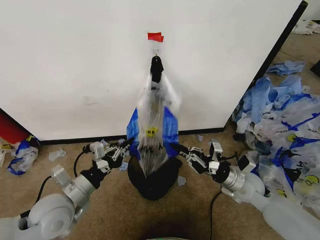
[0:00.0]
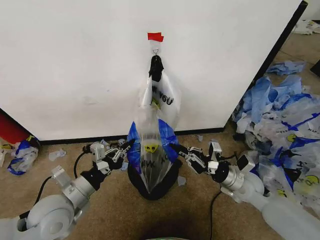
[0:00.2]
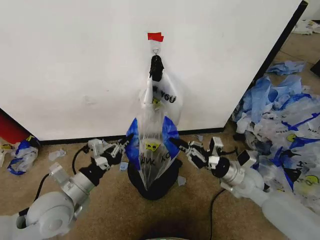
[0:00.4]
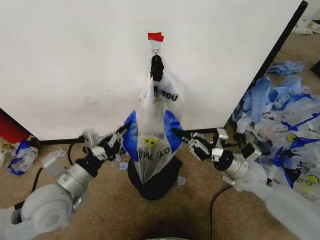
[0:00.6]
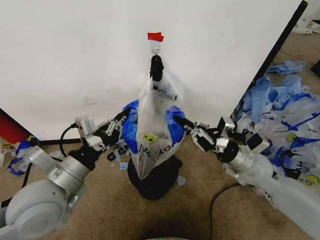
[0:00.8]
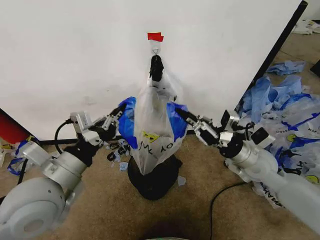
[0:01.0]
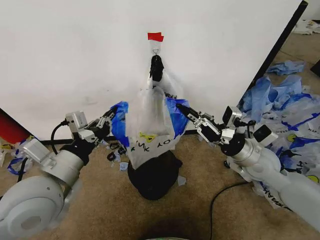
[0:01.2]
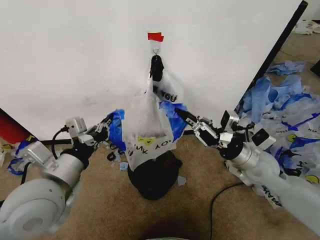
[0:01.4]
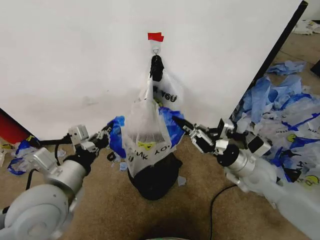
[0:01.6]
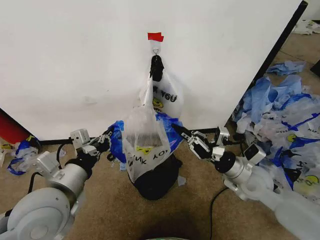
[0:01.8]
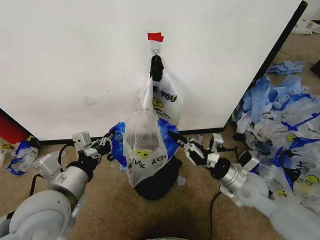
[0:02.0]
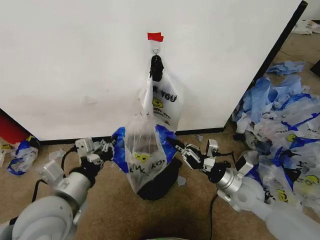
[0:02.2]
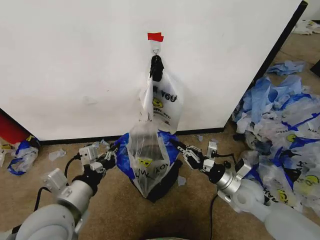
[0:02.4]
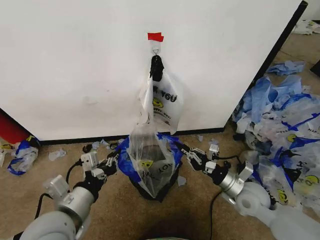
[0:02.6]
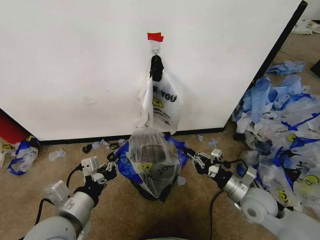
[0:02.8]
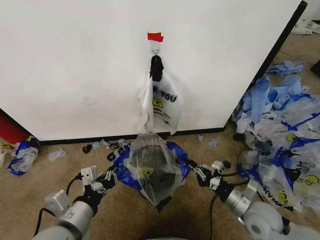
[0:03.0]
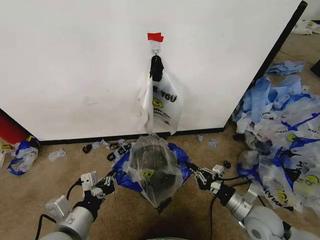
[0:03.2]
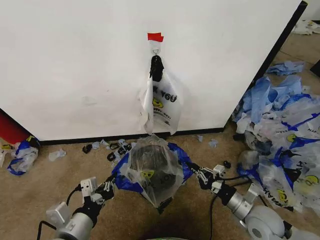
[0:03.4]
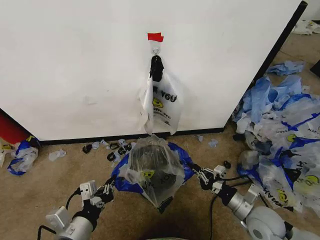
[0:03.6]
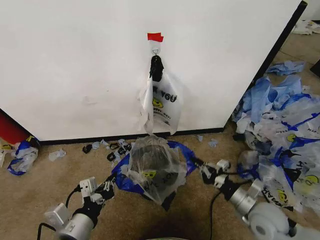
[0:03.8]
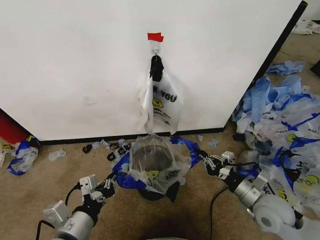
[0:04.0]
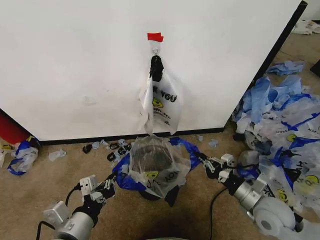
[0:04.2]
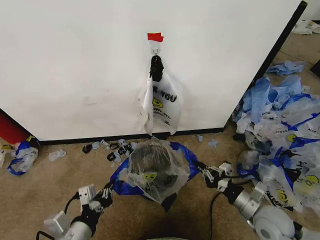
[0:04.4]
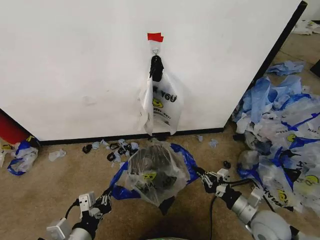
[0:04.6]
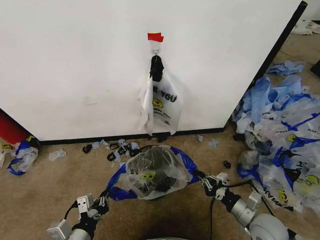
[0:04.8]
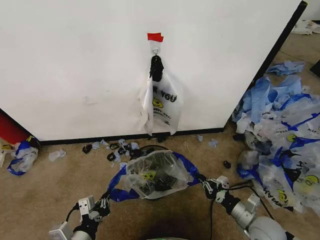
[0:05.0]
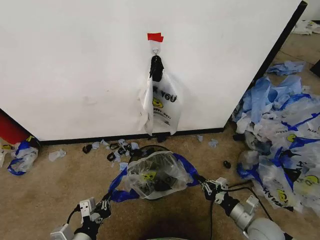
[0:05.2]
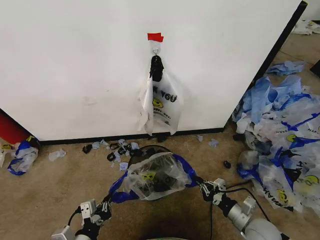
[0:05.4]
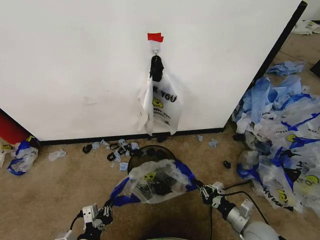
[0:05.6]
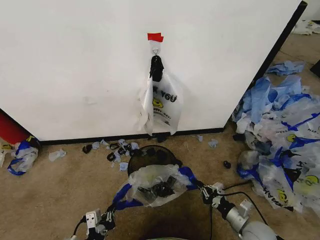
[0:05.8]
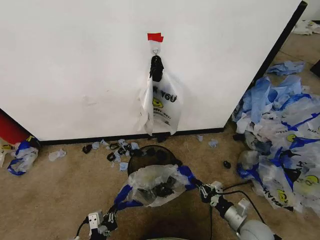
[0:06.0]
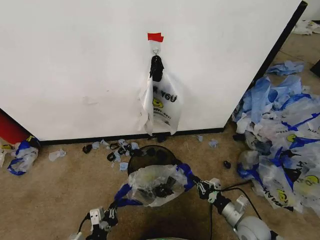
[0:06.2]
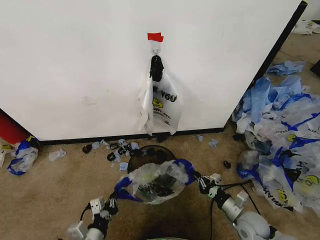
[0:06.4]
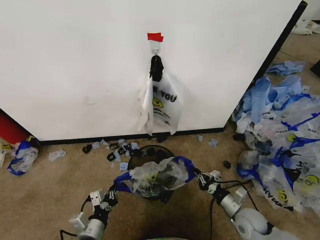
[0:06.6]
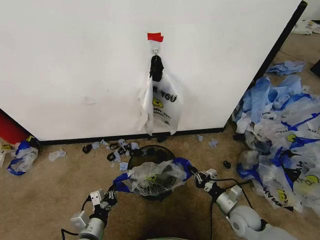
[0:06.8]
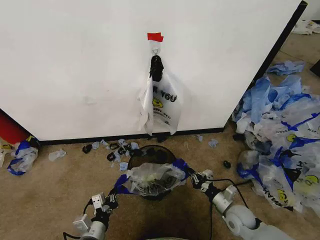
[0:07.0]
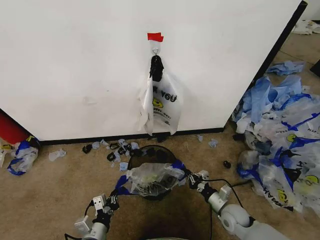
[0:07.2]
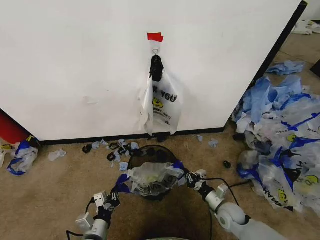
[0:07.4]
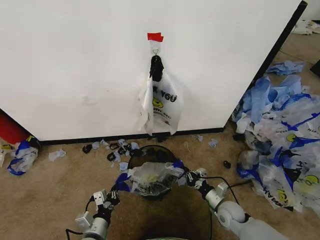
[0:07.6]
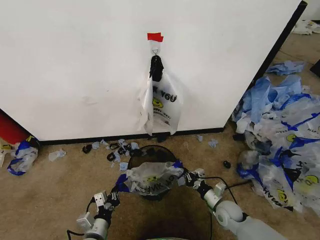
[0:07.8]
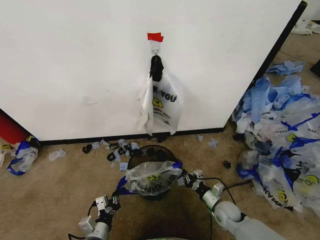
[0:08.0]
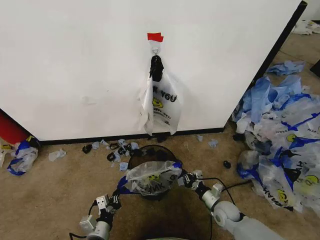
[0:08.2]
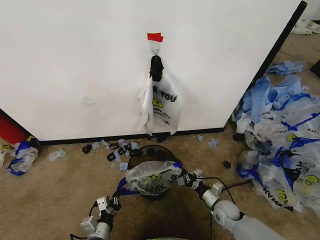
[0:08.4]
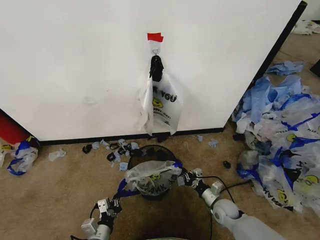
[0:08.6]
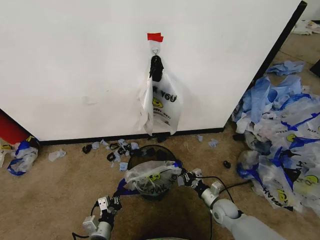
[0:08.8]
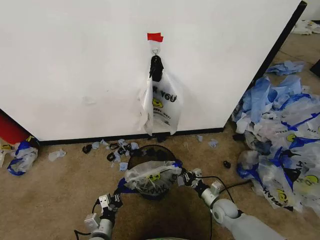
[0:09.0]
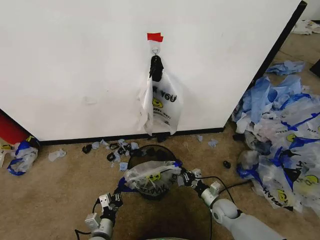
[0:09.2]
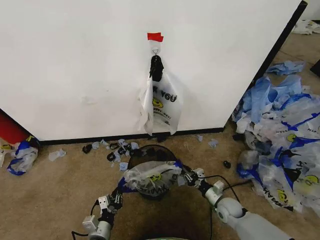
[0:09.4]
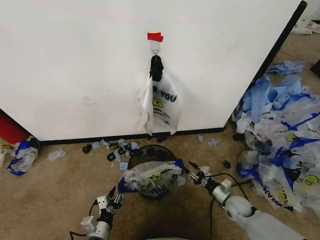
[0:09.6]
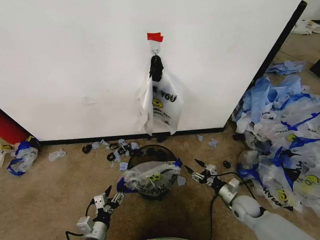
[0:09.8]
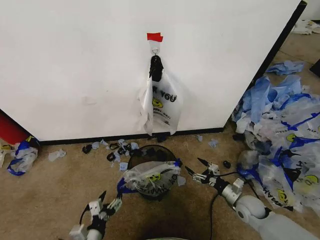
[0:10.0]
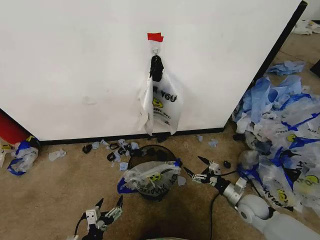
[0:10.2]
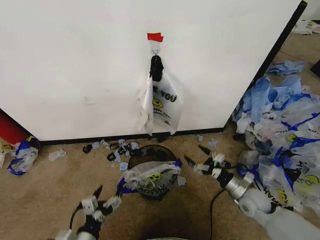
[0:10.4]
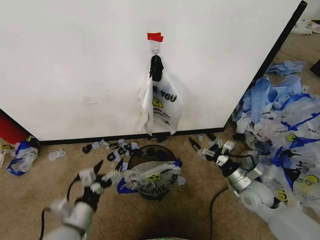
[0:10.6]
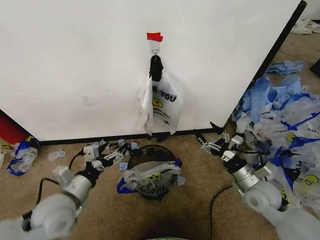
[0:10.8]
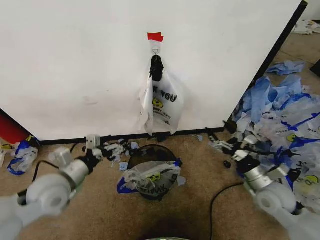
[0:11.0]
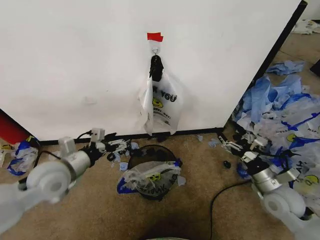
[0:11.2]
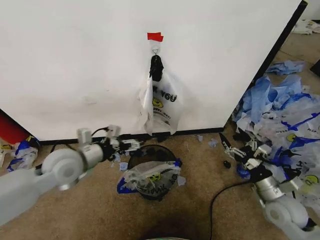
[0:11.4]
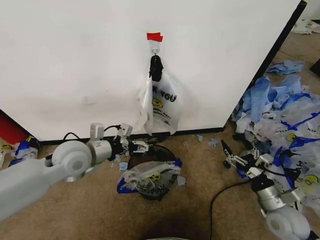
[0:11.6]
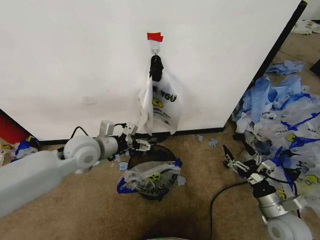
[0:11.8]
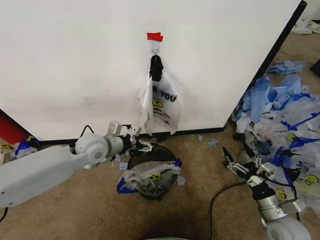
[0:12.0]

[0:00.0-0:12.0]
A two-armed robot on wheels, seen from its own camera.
Task of the whole recording: Pick up the garbage bag from the wall and place it over the trash bin.
0:00.0 to 0:01.6: The two grippers go about 10 cm upward.
0:01.6 to 0:03.0: Both grippers travel together downward and backward, roughly 10 cm.
0:03.0 to 0:04.4: The left gripper shifts by approximately 5 cm.
0:04.4 to 0:06.0: Both grippers travel together downward, some 10 cm.
0:06.0 to 0:07.6: Both grippers move forward, roughly 10 cm.
0:07.6 to 0:09.0: The left gripper goes approximately 5 cm downward.
0:09.0 to 0:10.4: The left gripper shifts about 15 cm upward and backward, and opens its fingers; the right gripper heads upward and to the right, covering some 15 cm, and opens up.
0:10.4 to 0:12.0: The right gripper is displaced backward by some 10 cm. The left gripper heads forward and upward, covering roughly 35 cm.

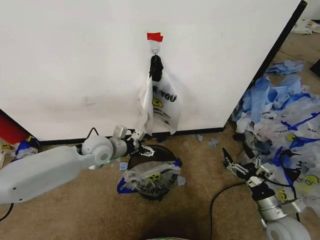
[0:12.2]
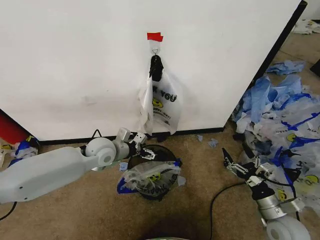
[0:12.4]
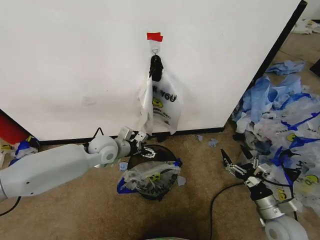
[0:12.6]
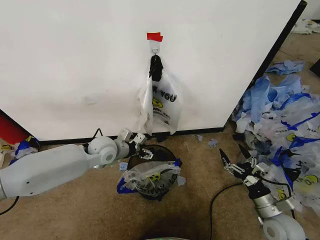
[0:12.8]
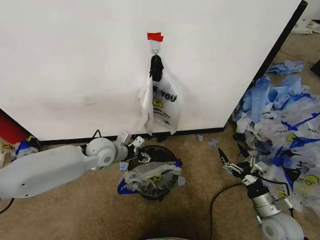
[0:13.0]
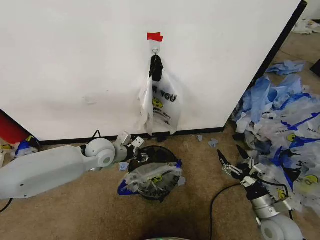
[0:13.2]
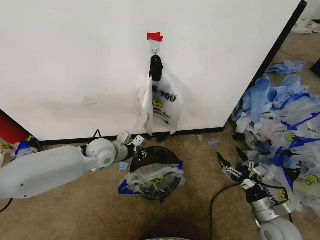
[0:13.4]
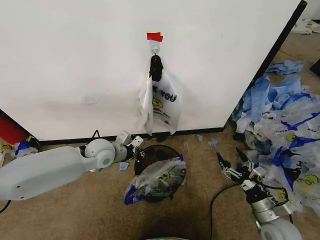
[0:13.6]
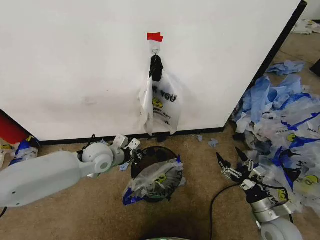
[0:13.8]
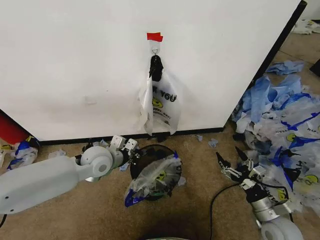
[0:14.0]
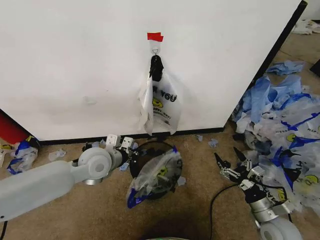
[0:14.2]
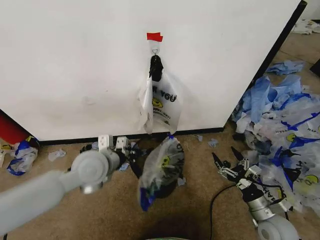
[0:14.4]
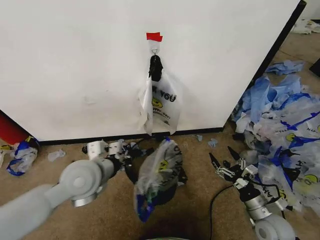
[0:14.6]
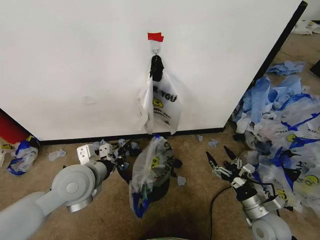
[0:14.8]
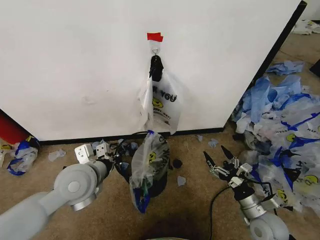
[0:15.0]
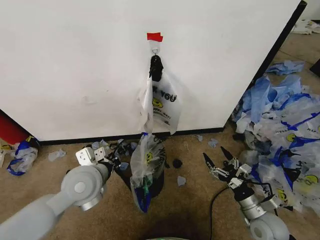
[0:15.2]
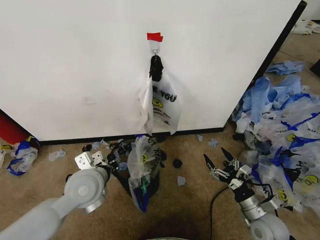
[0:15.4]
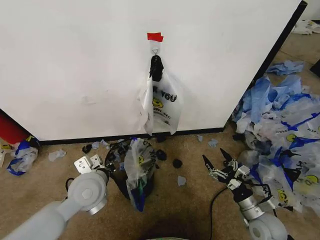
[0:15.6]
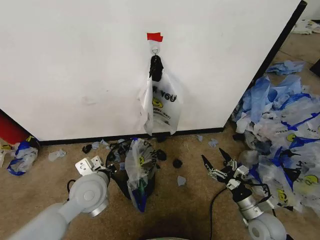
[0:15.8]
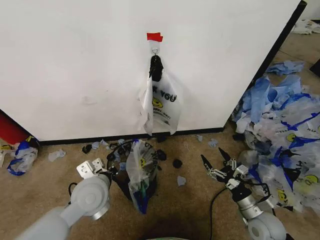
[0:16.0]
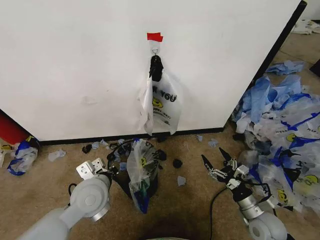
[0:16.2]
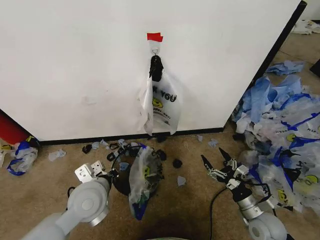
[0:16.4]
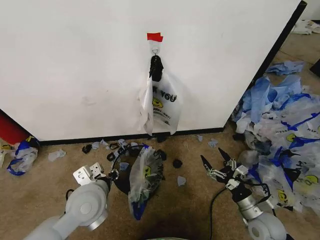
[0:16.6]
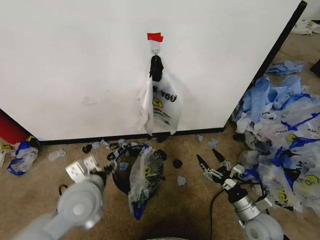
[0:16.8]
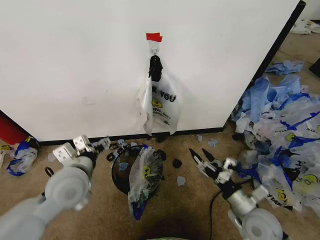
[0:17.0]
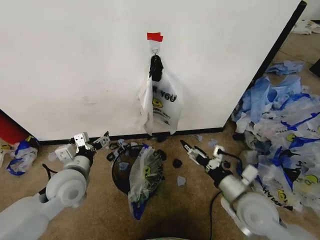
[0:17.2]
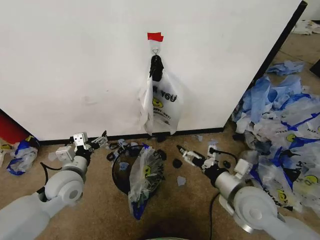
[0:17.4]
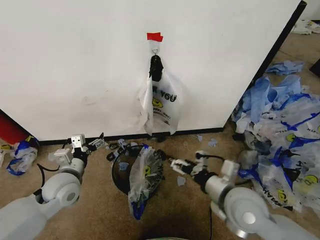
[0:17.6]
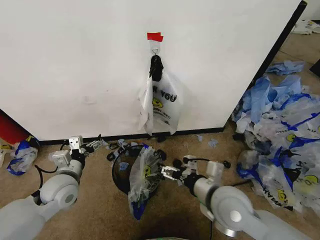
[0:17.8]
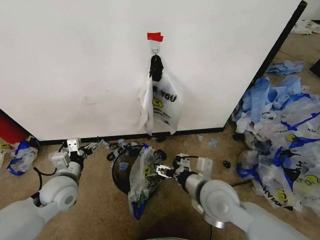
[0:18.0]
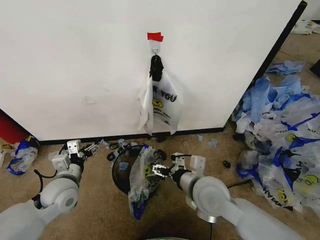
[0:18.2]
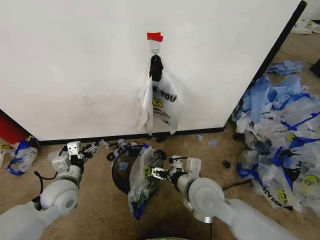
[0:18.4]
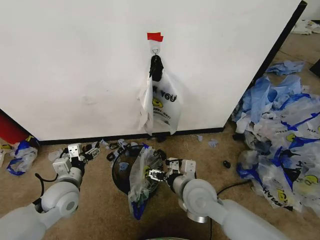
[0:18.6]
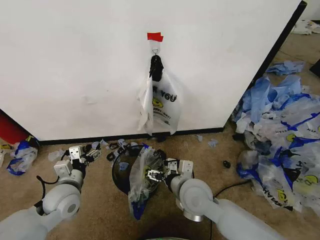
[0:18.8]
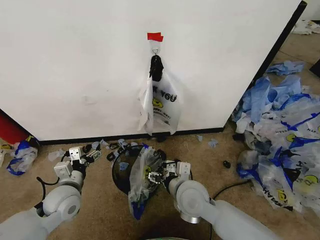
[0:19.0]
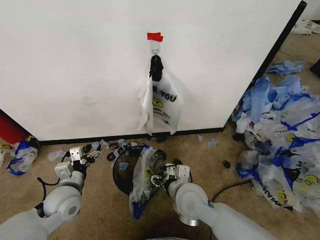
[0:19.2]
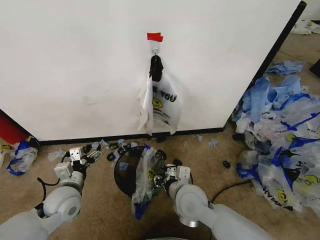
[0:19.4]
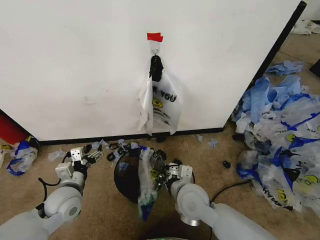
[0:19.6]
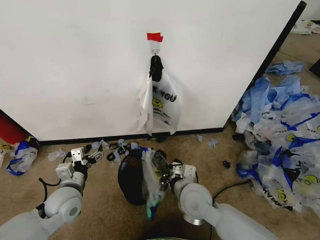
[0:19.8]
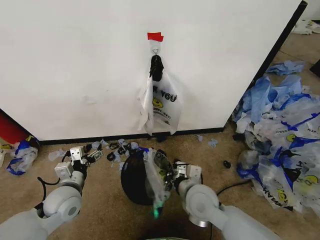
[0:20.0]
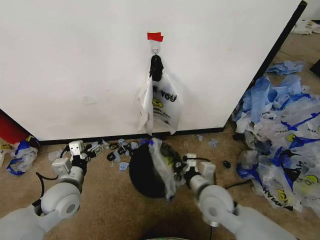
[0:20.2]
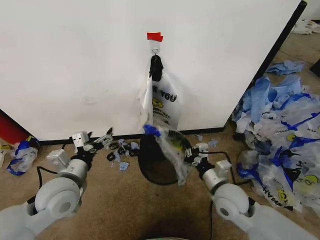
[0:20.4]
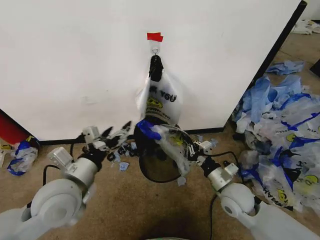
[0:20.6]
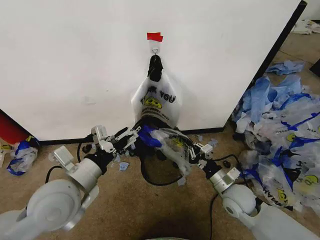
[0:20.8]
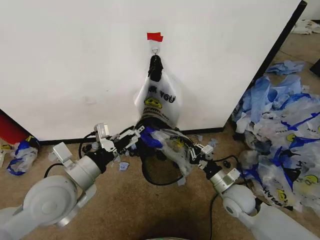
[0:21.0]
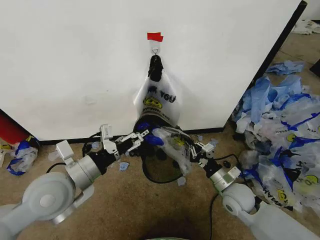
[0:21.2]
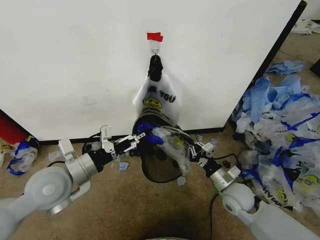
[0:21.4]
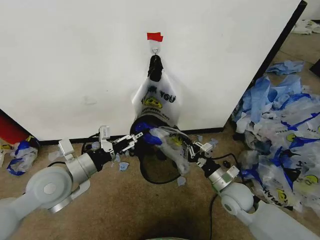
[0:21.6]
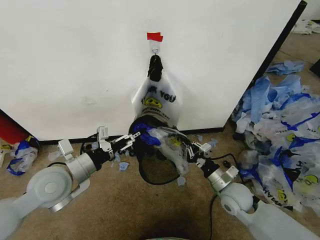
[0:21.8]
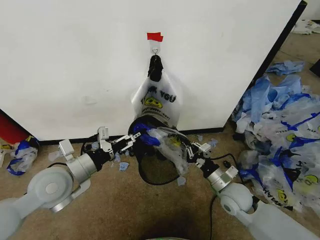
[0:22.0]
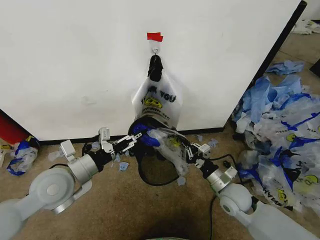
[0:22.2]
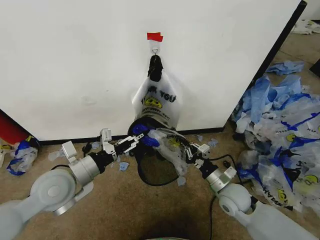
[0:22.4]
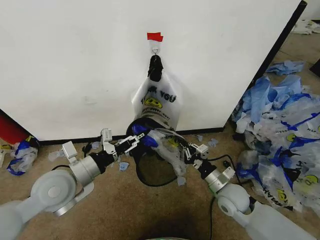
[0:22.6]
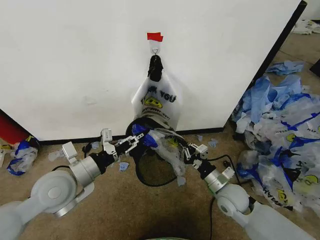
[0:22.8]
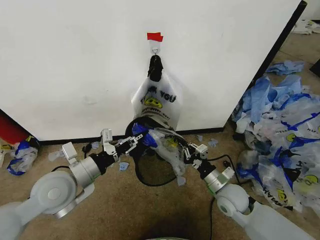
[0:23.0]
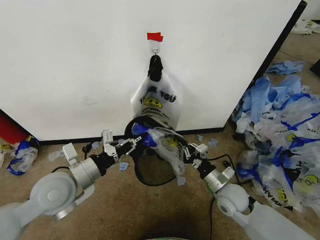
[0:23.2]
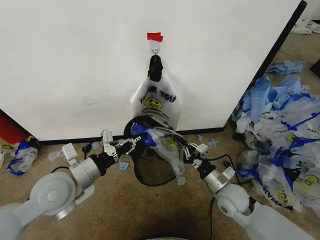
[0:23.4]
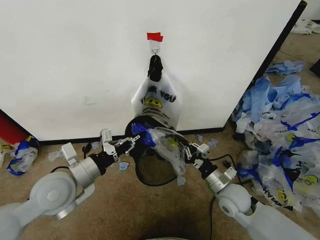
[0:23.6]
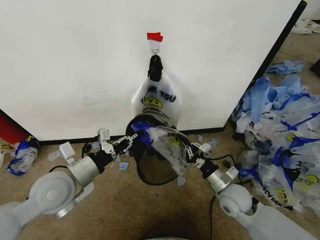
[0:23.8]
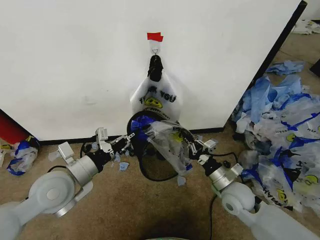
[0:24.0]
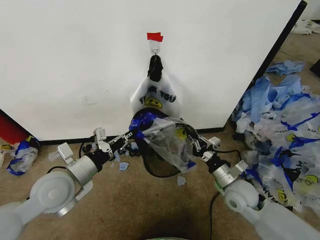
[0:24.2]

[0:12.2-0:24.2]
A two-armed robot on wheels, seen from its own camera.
Task of the whole recording: Pick up the garbage bag from the wall and place it over the trash bin.
0:12.2 to 0:13.8: The left gripper closes.
0:13.8 to 0:15.2: The left gripper moves backward, approximately 10 cm.
0:15.2 to 0:16.6: The left gripper changes place by some 5 cm, and opens its fingers.
0:16.6 to 0:18.2: The right gripper goes about 25 cm to the left and upward. Meanwhile the left gripper is displaced to the left by roughly 10 cm, and opens.
0:18.2 to 0:19.8: The right gripper heads downward, covering approximately 5 cm, and closes up.
0:19.8 to 0:21.2: The left gripper heads upward, covering about 15 cm. Meanwhile the right gripper travels to the right by about 15 cm.
0:21.2 to 0:22.6: The left gripper closes up.
0:22.6 to 0:24.2: The left gripper closes up.
